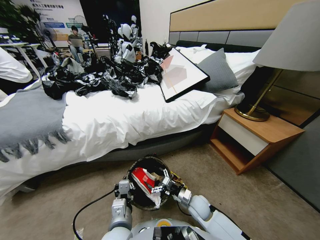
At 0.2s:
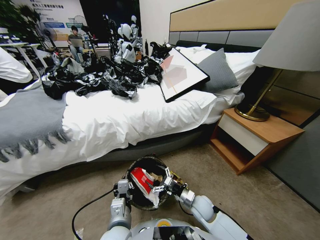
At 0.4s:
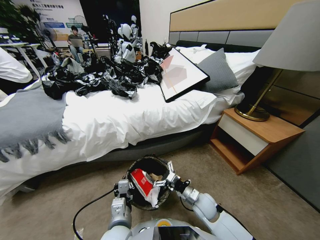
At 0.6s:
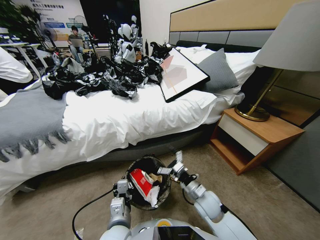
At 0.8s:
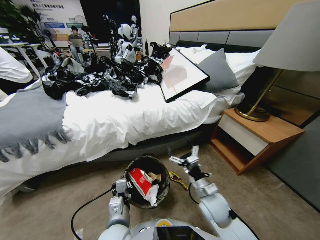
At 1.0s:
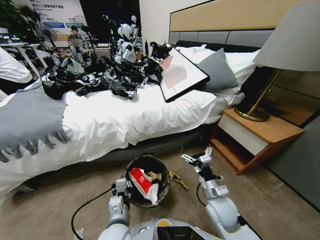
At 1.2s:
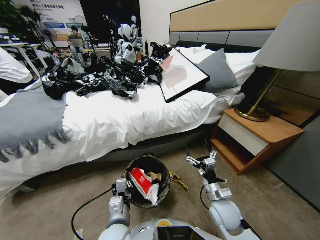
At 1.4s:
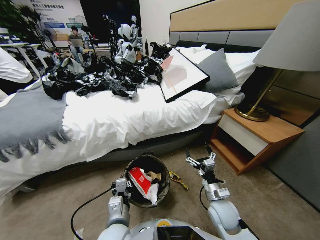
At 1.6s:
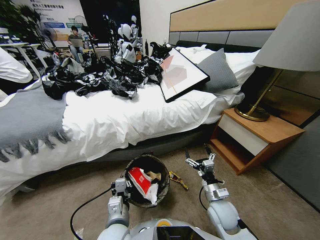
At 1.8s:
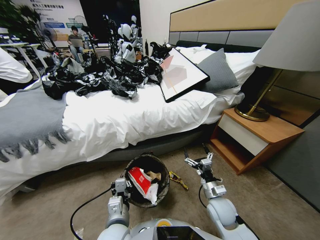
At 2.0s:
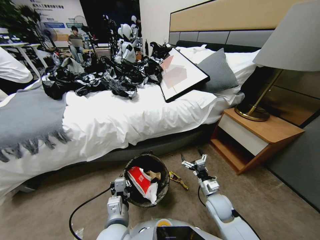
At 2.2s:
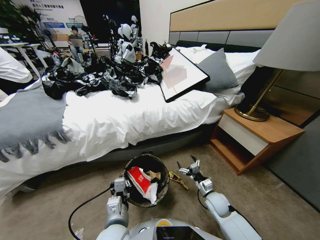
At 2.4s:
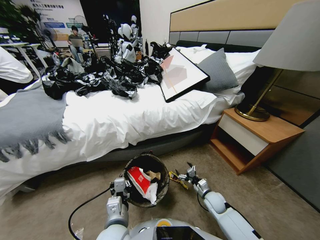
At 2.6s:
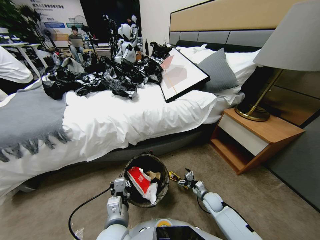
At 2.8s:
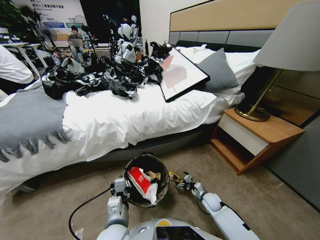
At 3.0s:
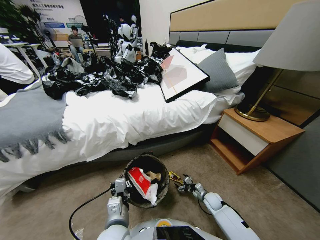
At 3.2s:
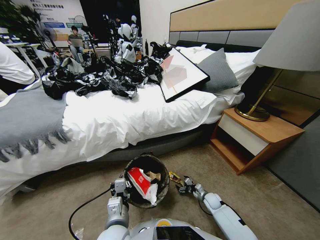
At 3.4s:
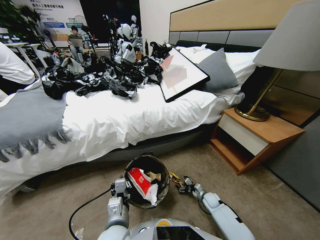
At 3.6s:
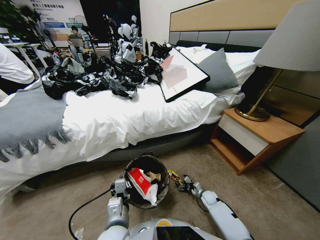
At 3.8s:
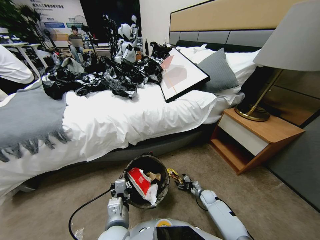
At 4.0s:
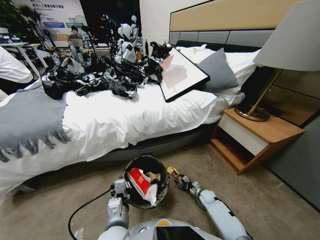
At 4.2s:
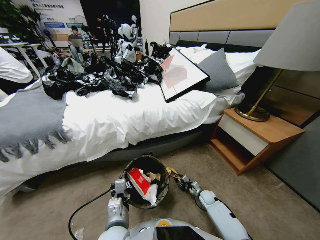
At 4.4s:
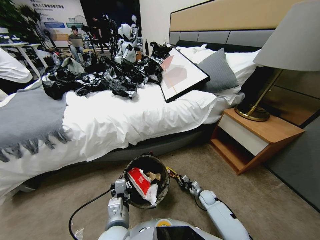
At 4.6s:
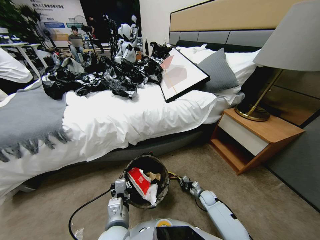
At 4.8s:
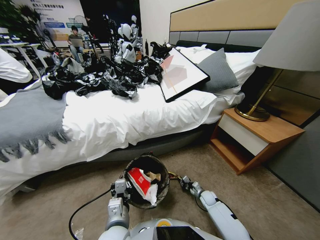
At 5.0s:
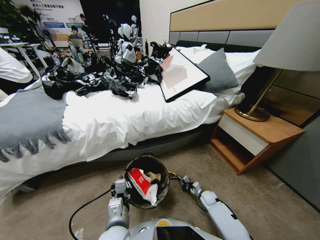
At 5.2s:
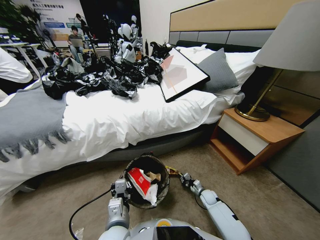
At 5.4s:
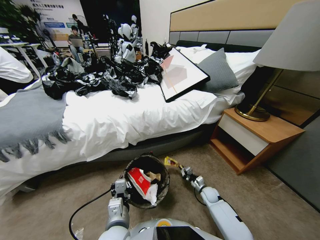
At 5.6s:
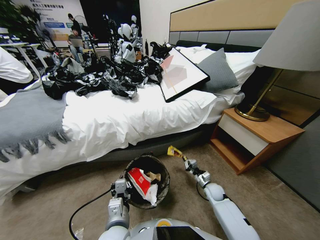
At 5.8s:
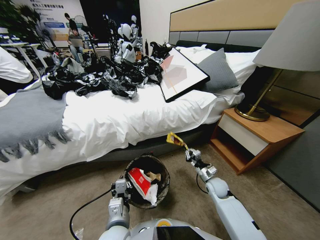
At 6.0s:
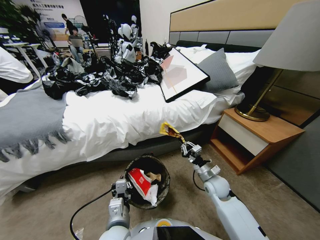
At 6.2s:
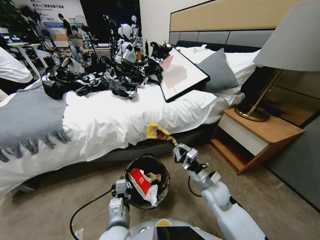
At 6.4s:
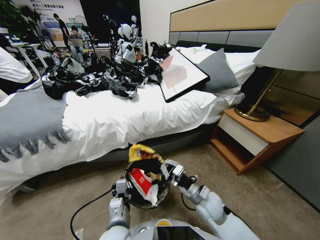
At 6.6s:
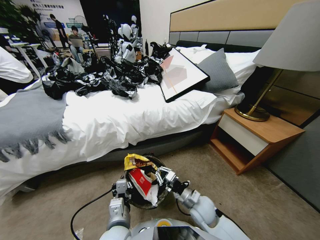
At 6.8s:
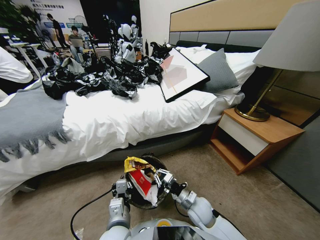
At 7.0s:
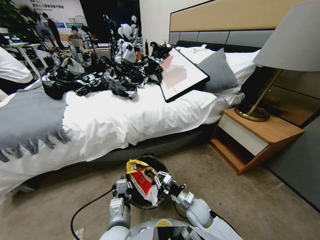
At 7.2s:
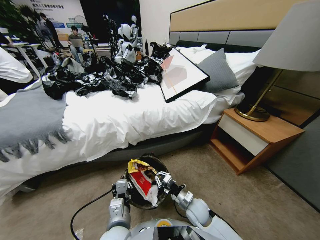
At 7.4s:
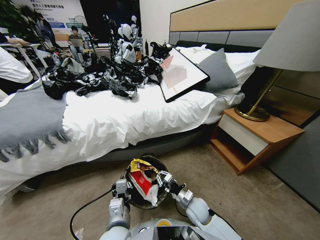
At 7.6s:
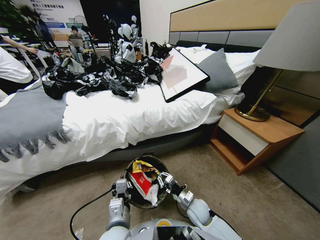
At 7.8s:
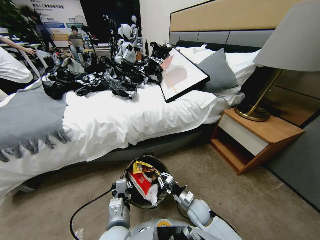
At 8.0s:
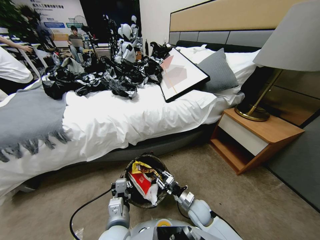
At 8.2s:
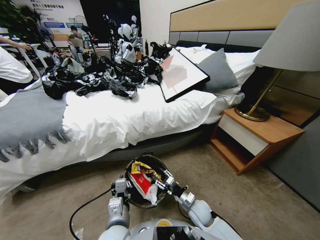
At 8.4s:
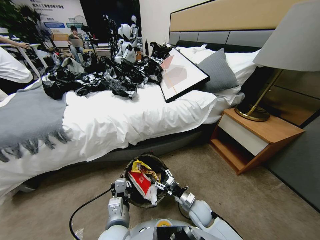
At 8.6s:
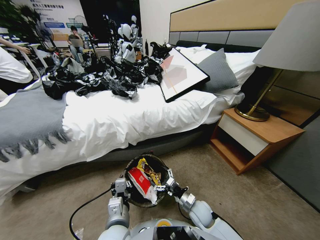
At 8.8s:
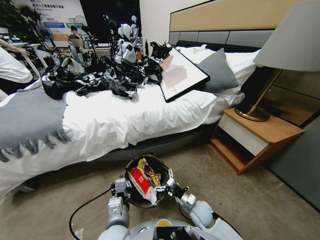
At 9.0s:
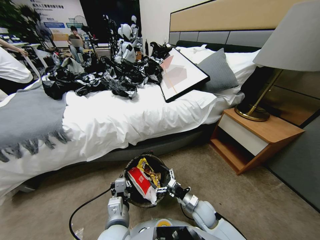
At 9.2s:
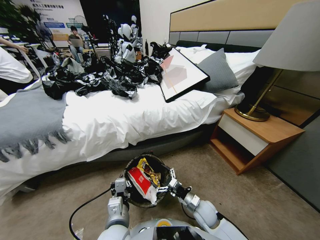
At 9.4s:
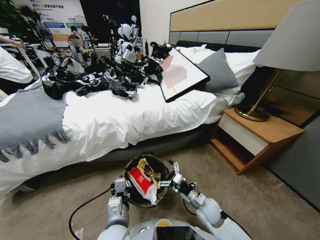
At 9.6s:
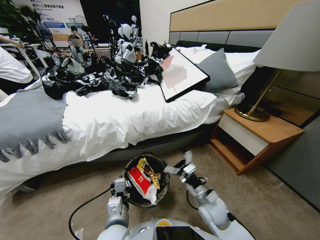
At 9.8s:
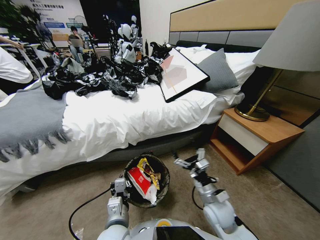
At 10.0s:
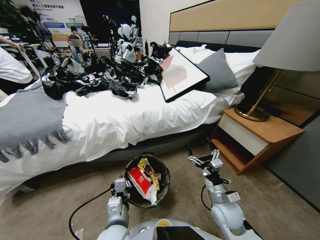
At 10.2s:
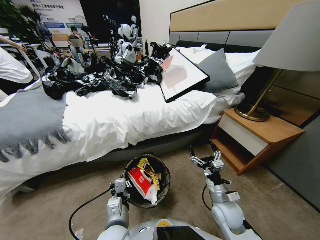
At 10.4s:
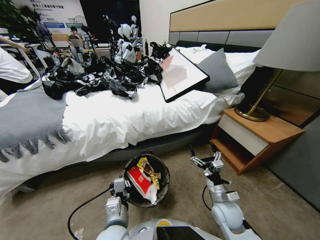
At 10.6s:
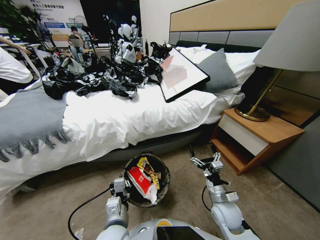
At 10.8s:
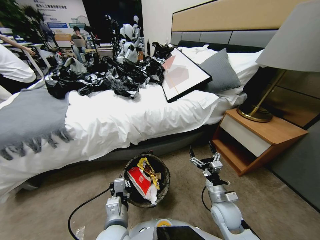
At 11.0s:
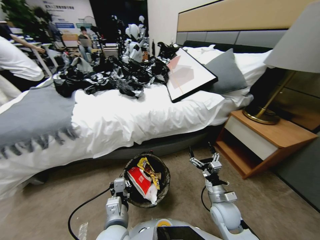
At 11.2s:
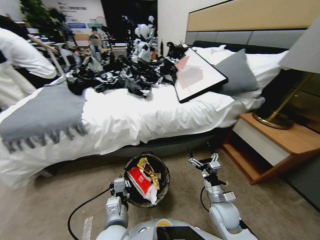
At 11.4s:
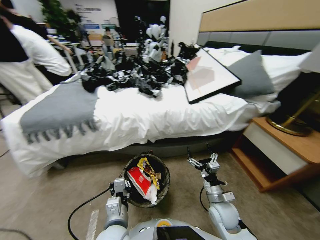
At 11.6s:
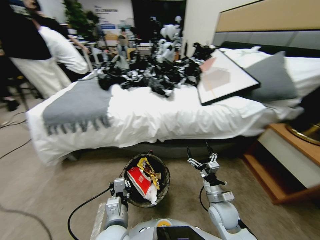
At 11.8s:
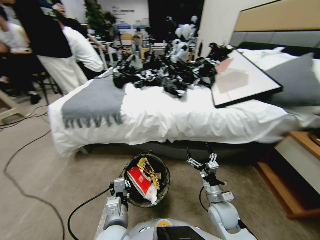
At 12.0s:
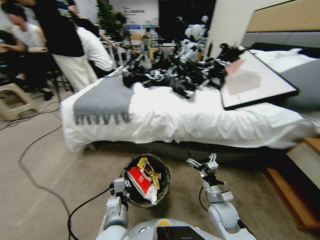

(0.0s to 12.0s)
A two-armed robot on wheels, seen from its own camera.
Task of the whole recording: Pick up the trash bin, then pick up the garbage from the floor and place it into the trash bin.
0.0s - 1.6s: The right gripper is displaced upward and to the right by roughly 10 cm.
1.6s - 3.0s: The right gripper goes roughly 20 cm downward.
3.0s - 4.4s: The right gripper closes up.
4.4s - 6.0s: The right gripper goes approximately 30 cm upward.
6.0s - 7.6s: The right gripper moves downward, about 15 cm.
7.6s - 9.0s: The right gripper opens its fingers.
9.0s - 10.4s: The right gripper shifts approximately 10 cm upward and to the right.

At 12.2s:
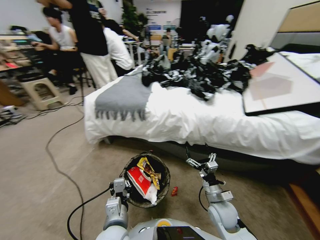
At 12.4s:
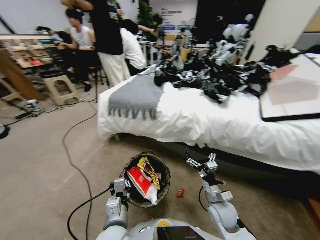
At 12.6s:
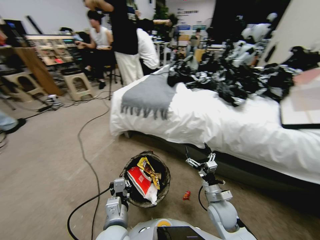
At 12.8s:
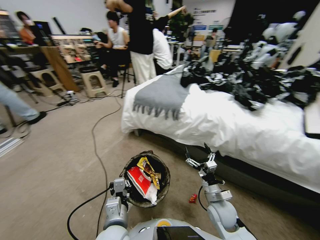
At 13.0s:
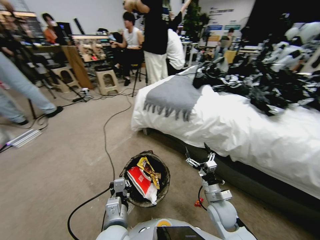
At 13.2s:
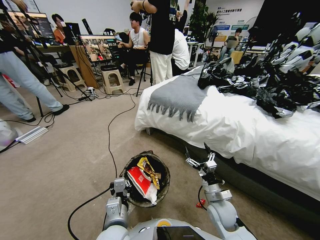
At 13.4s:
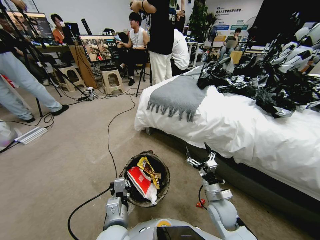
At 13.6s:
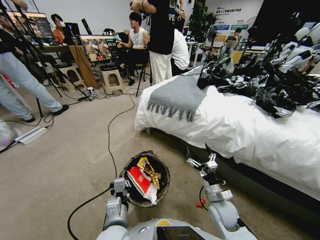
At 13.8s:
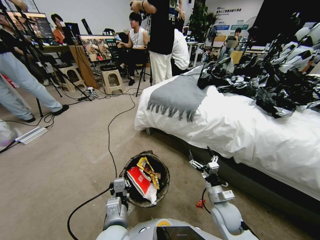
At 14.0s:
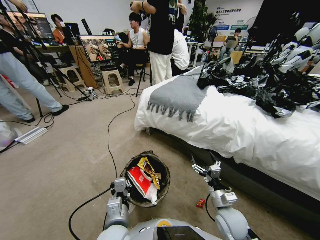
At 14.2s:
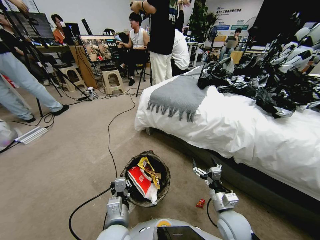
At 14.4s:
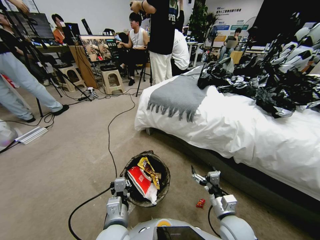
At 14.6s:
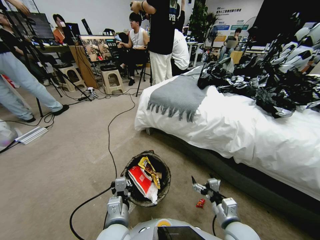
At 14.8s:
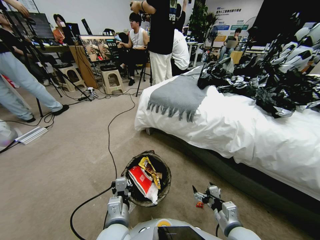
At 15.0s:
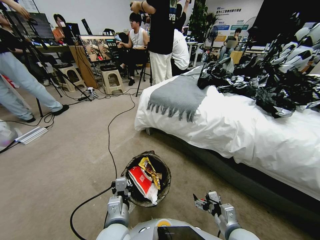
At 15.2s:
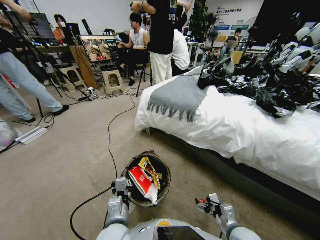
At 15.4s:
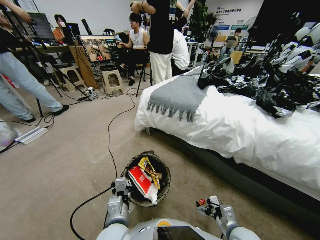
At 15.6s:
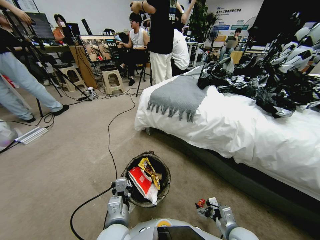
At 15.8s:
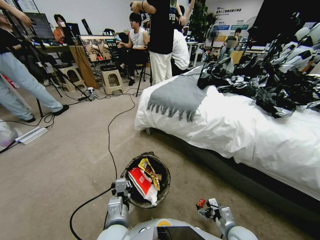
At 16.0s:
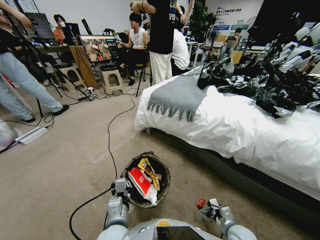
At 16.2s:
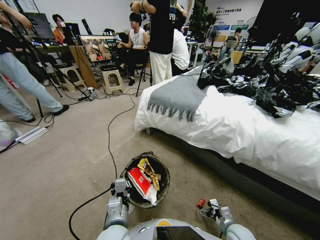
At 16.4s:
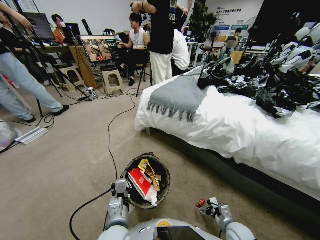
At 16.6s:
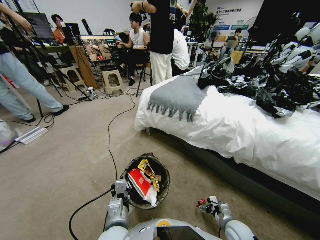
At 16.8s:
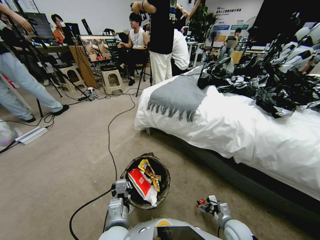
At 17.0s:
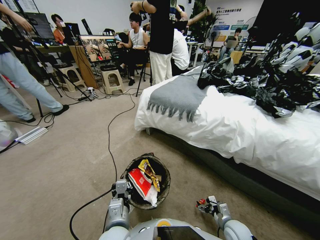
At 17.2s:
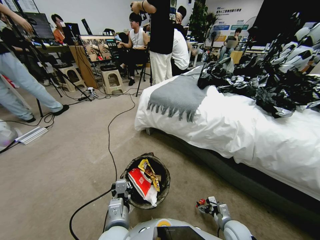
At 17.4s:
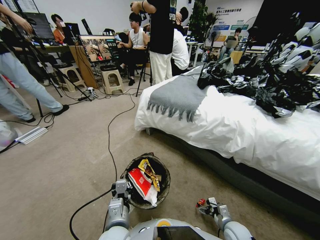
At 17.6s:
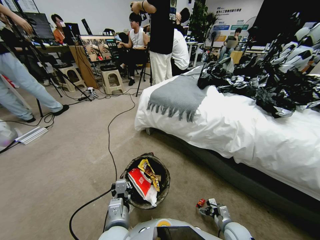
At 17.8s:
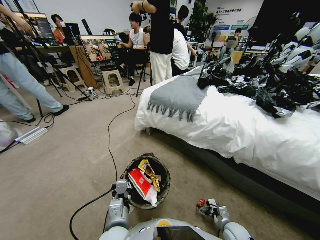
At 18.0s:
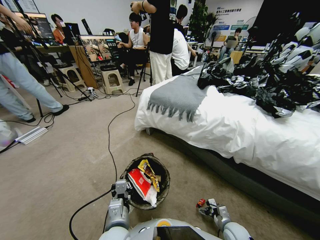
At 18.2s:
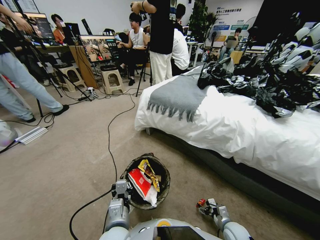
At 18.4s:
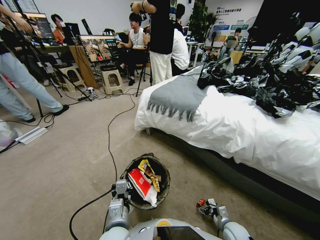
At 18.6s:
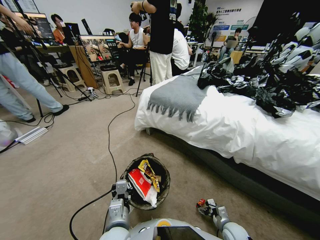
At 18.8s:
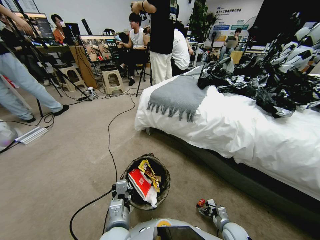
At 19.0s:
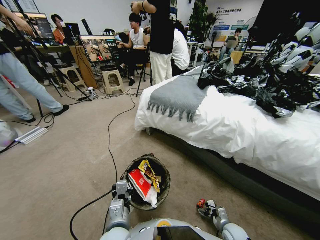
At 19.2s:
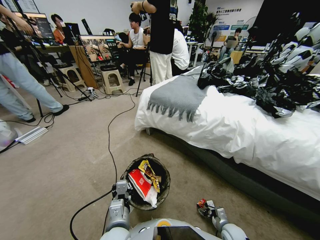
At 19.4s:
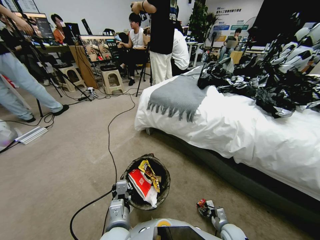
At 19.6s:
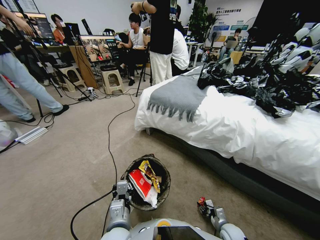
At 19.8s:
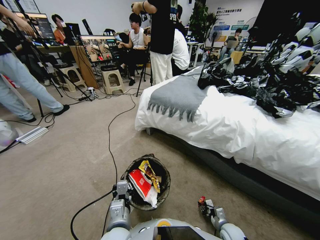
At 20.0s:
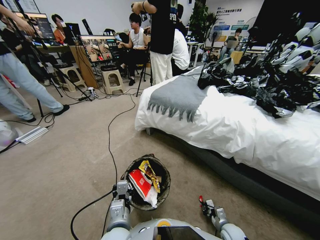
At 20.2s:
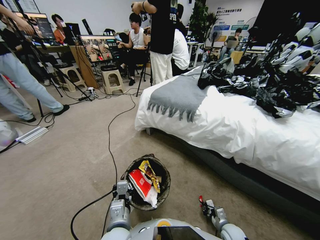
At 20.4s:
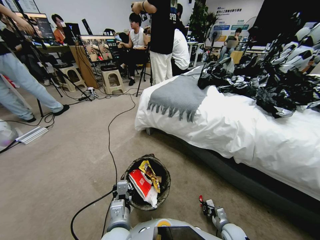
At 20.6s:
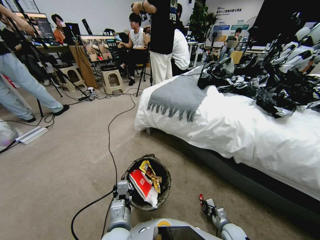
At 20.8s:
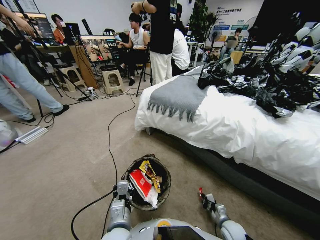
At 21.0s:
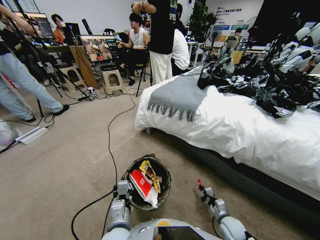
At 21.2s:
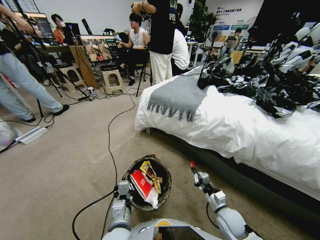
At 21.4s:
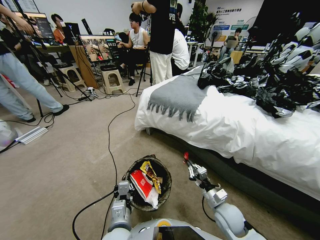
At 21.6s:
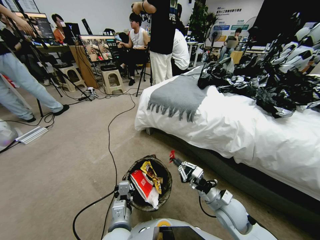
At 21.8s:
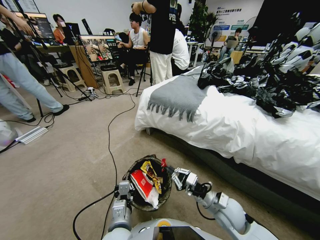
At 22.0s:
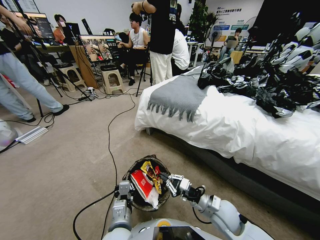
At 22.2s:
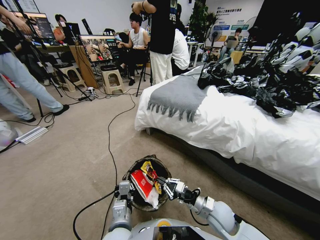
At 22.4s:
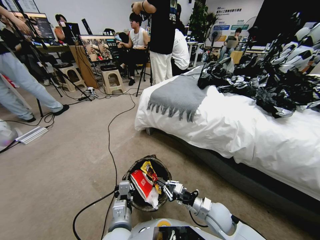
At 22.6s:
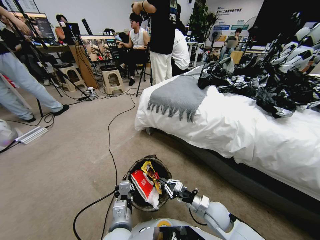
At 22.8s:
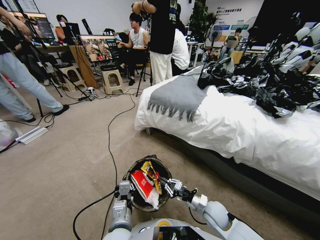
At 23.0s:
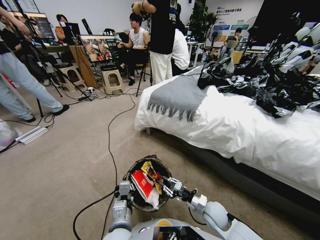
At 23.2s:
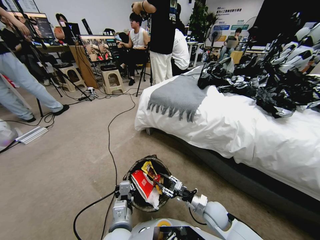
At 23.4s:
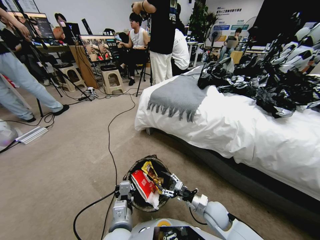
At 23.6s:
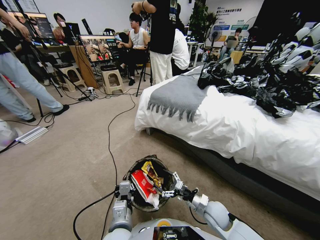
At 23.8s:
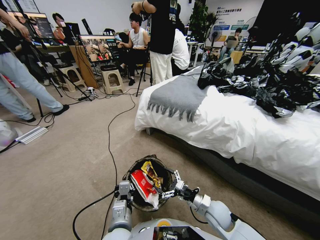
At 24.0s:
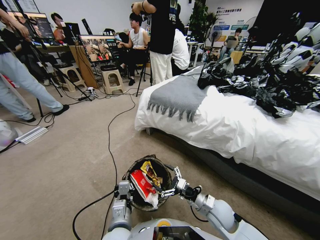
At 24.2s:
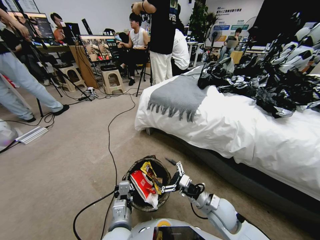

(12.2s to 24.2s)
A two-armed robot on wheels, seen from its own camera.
Task of the whole recording: Pick up the trash bin, then pick up the garbage from the floor and place it into the trash bin.
13.8s - 15.2s: The right gripper goes some 5 cm backward.
15.2s - 16.6s: The right gripper goes about 10 cm downward.
16.6s - 18.2s: The grippers stay close to where they were, moving slightly.
18.2s - 19.8s: The right gripper closes up.
19.8s - 21.2s: The right gripper shifts roughly 15 cm upward and to the left.
21.2s - 22.6s: The right gripper moves some 10 cm upward and comes back.
22.6s - 24.2s: The right gripper goes approximately 10 cm upward, and opens up.
